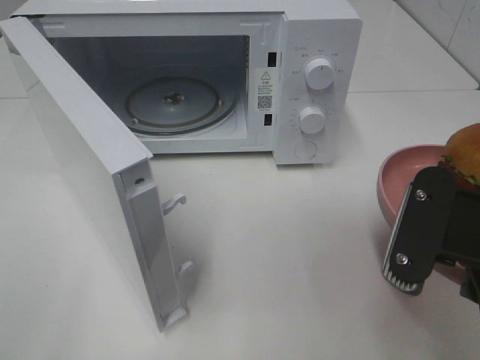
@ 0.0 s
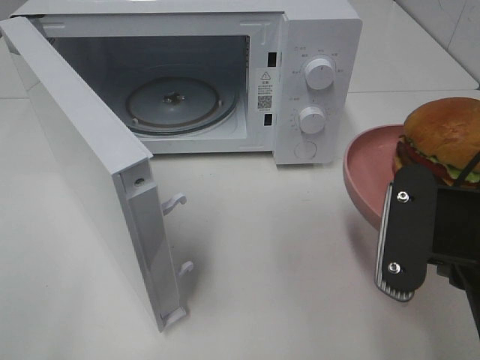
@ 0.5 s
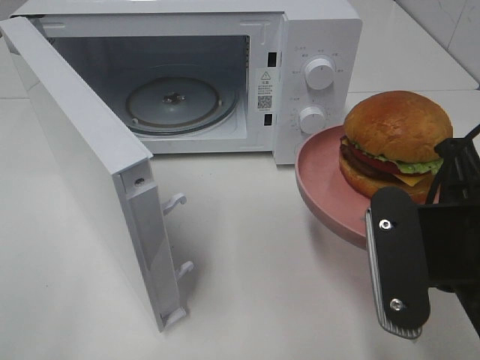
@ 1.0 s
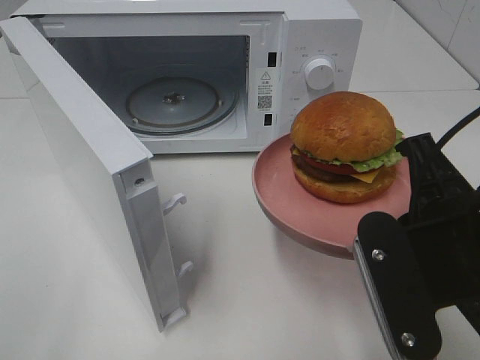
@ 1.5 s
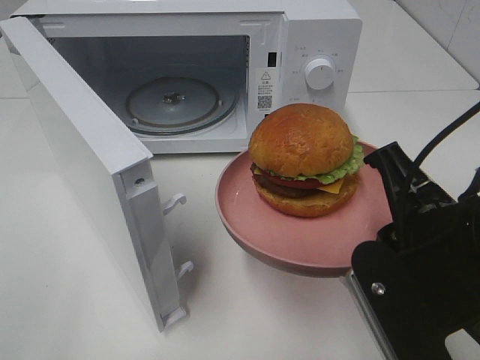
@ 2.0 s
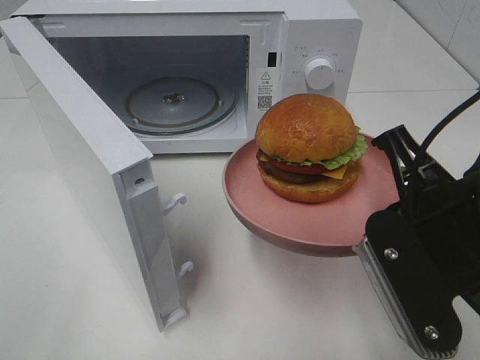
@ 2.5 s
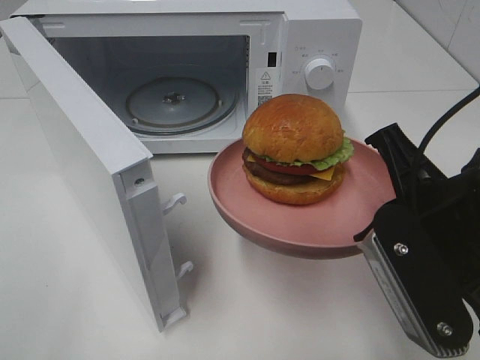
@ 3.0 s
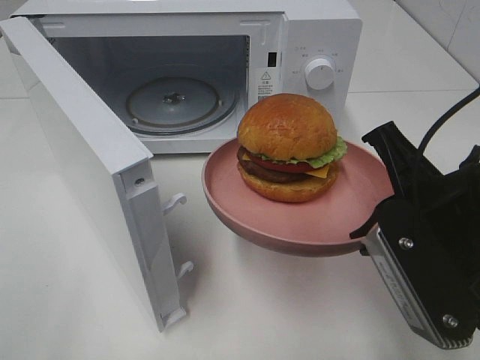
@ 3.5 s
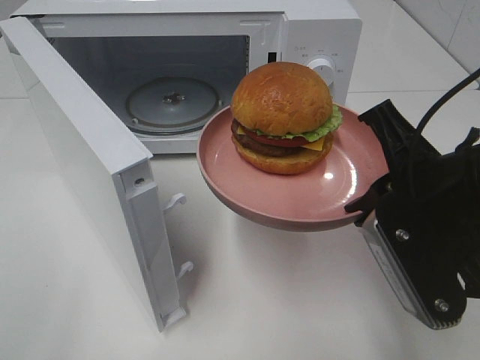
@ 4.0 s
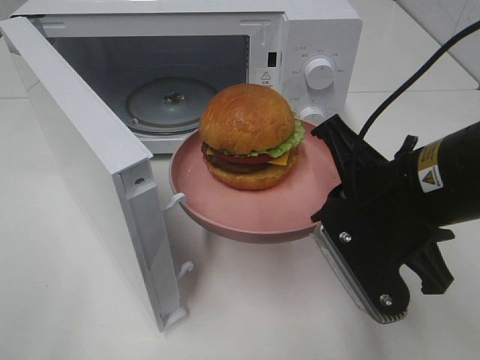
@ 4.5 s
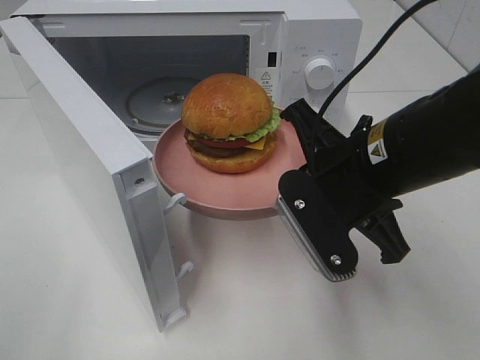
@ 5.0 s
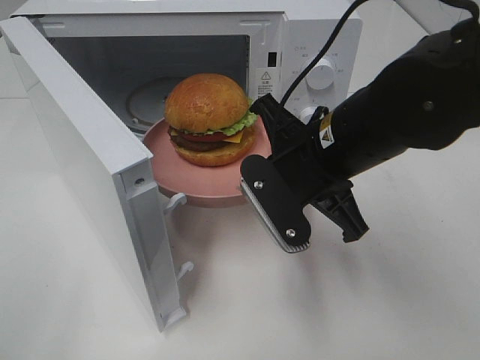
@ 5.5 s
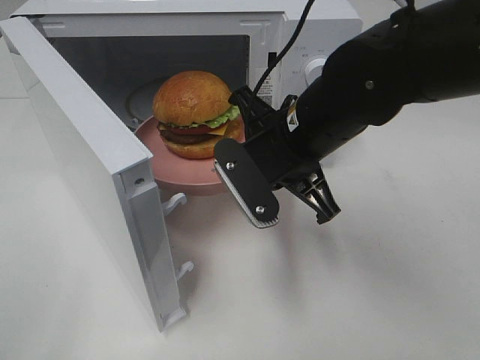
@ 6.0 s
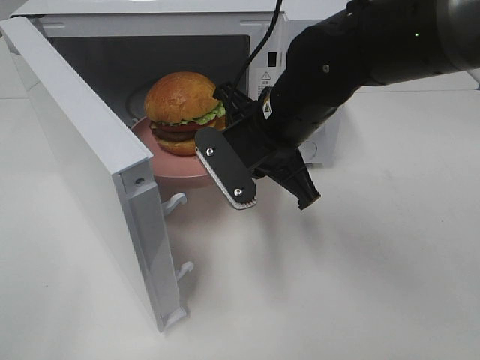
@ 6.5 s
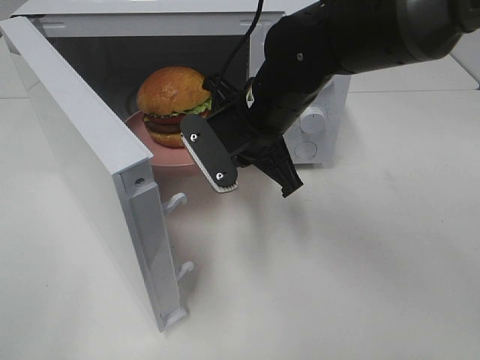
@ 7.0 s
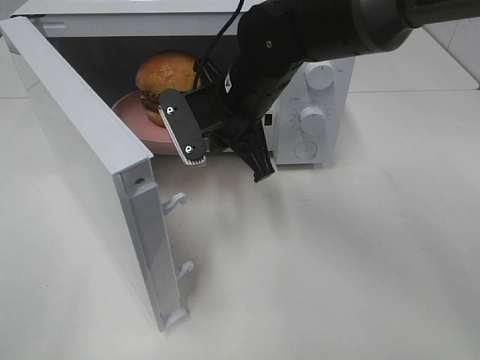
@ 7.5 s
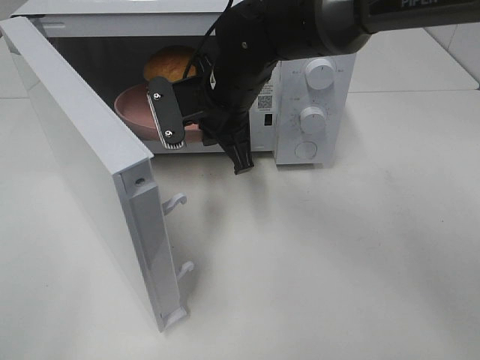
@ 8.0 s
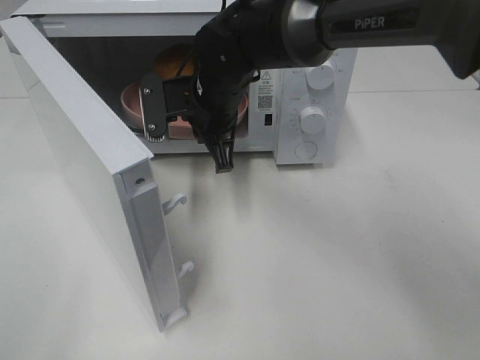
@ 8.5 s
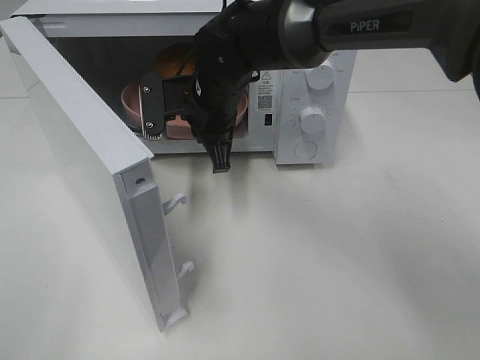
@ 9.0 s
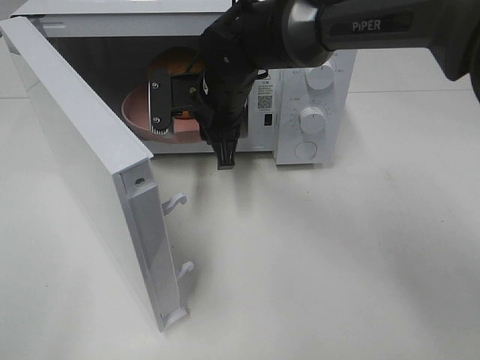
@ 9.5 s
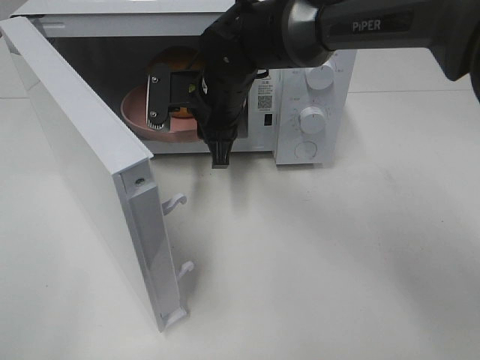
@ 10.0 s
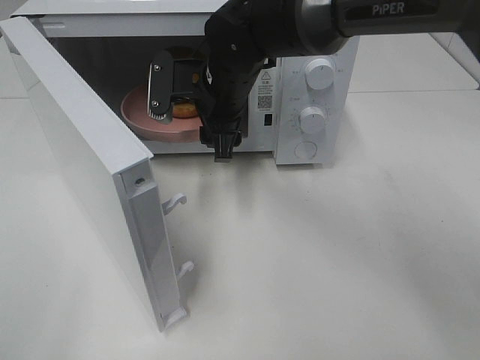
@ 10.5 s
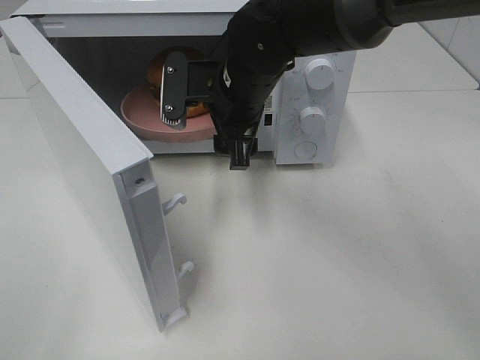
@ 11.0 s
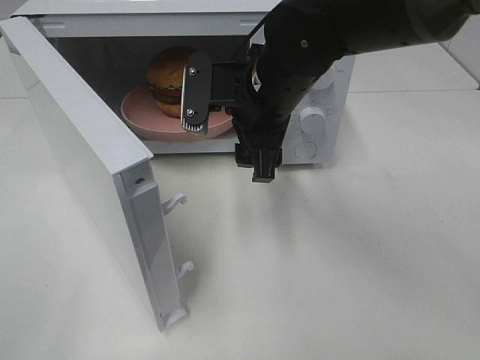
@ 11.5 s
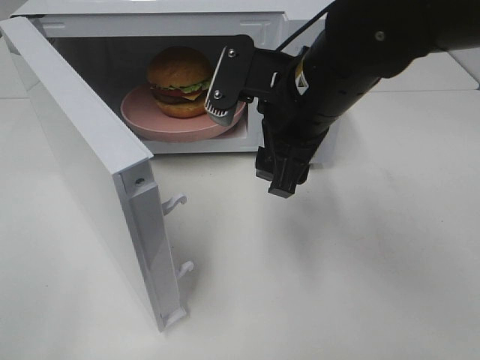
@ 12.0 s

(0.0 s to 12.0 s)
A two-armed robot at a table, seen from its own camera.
Task of the whole recording: Heat the burger.
Step, 0.0 s - 9.0 s: Right hand: place the plate in the microwave.
4.0 s - 6.0 s: The right gripper travels forward and to the left by about 15 cm.
6.0 s - 8.0 s: The right gripper heads forward and to the left, covering approximately 10 cm.
8.0 s - 10.0 s: There are only small adjustments of the grippers.
10.0 s - 12.0 s: The right gripper moves backward, to the right and upward, about 15 cm, and opens up.

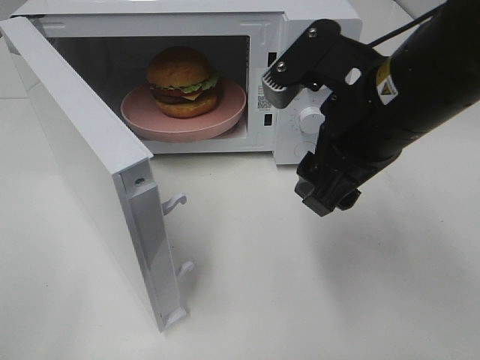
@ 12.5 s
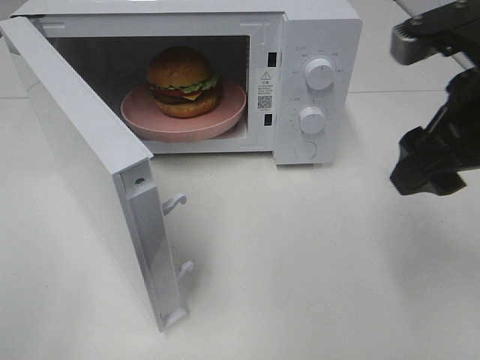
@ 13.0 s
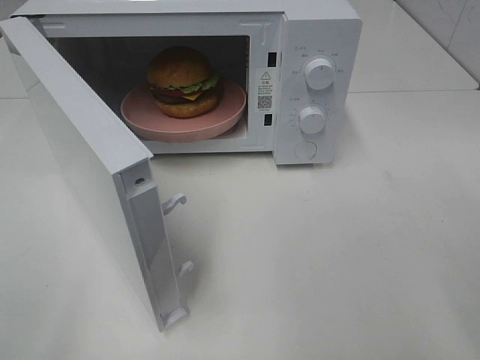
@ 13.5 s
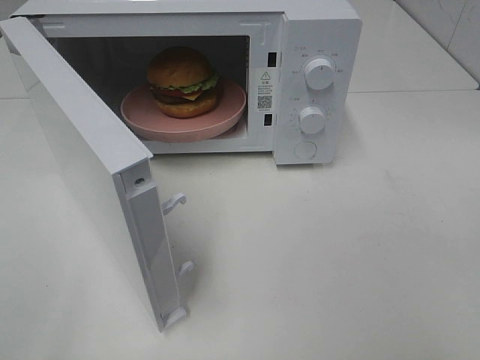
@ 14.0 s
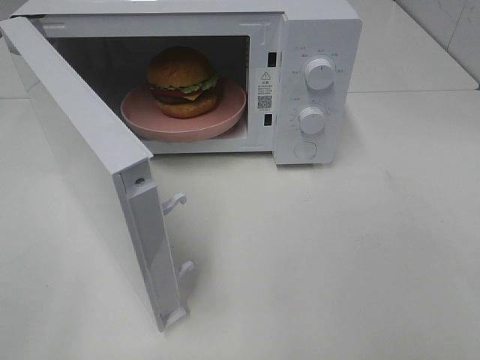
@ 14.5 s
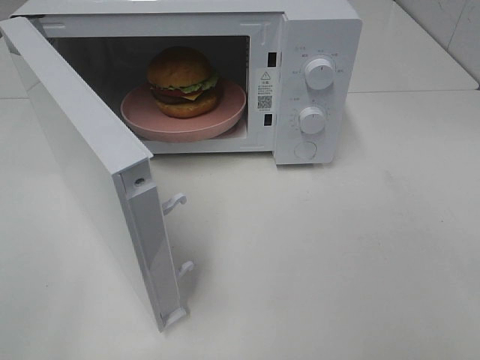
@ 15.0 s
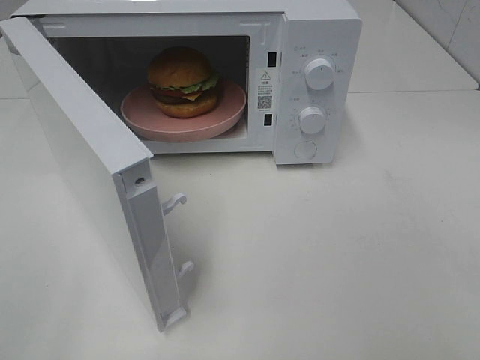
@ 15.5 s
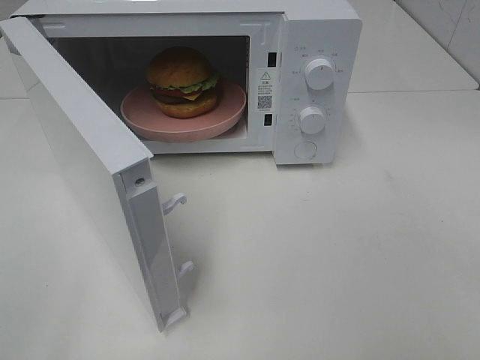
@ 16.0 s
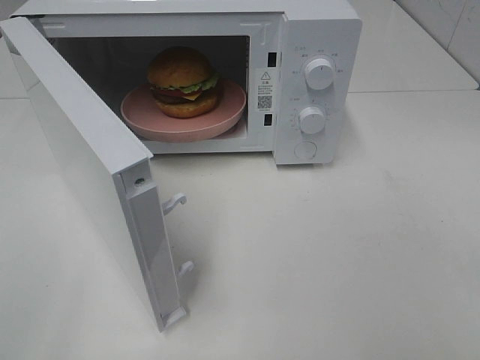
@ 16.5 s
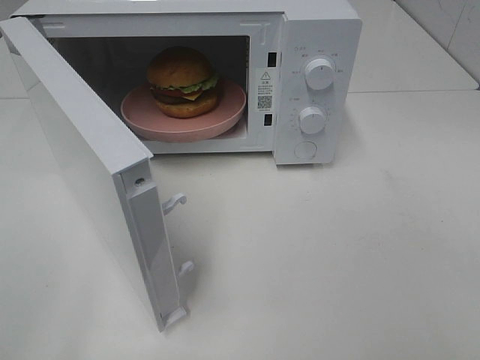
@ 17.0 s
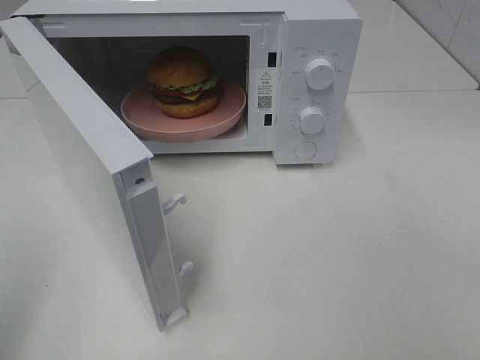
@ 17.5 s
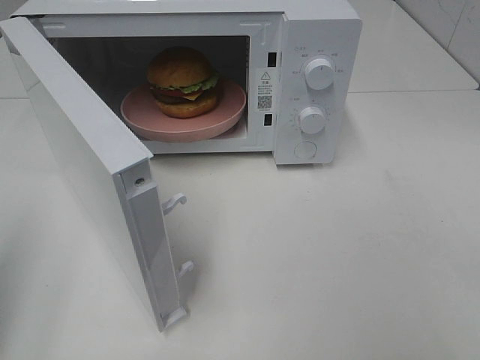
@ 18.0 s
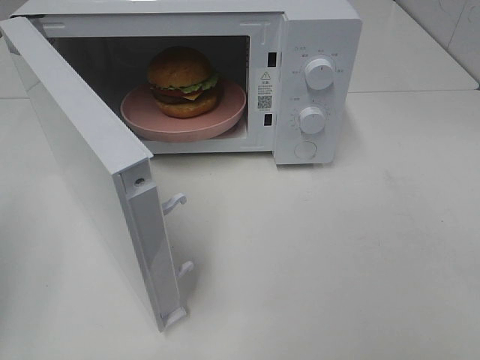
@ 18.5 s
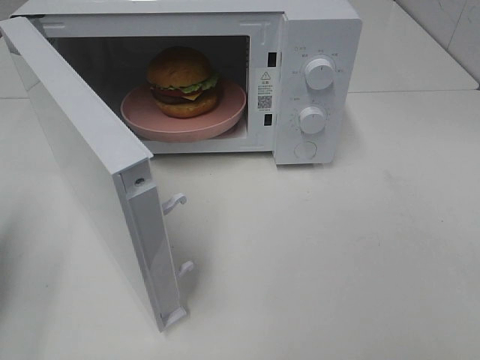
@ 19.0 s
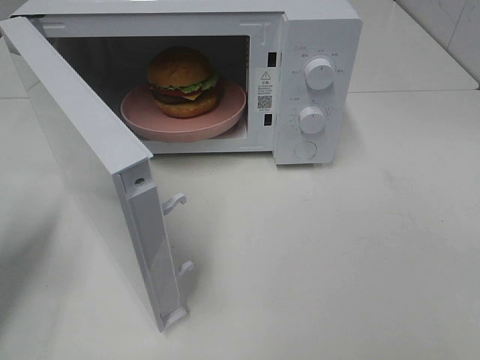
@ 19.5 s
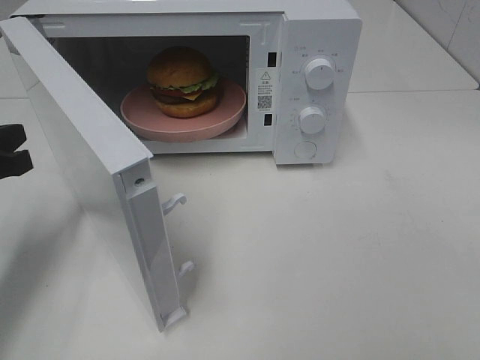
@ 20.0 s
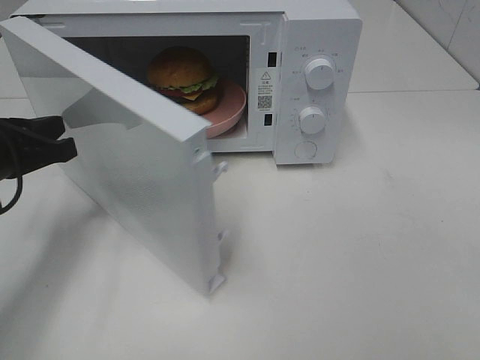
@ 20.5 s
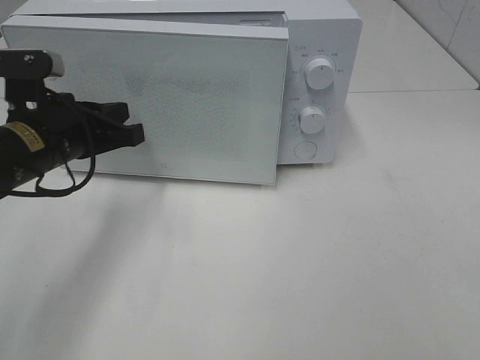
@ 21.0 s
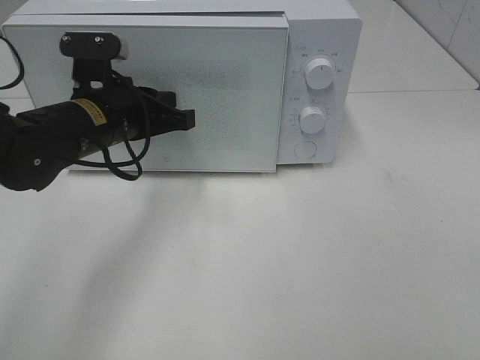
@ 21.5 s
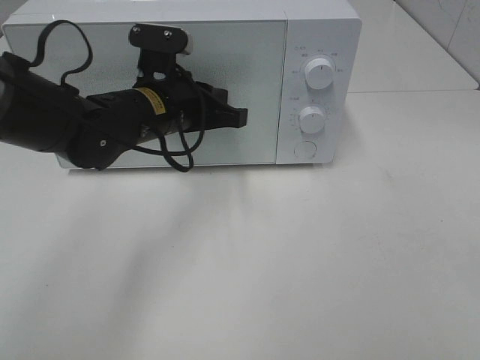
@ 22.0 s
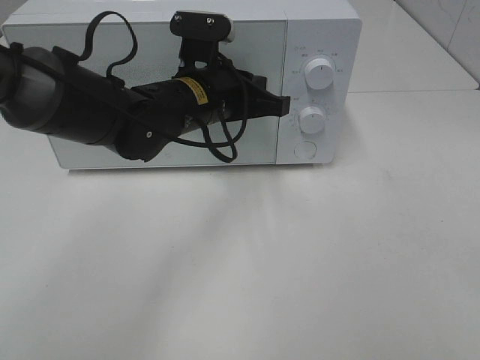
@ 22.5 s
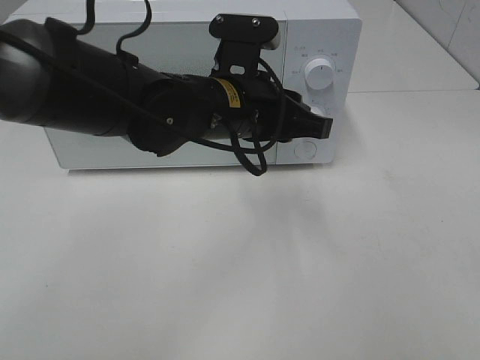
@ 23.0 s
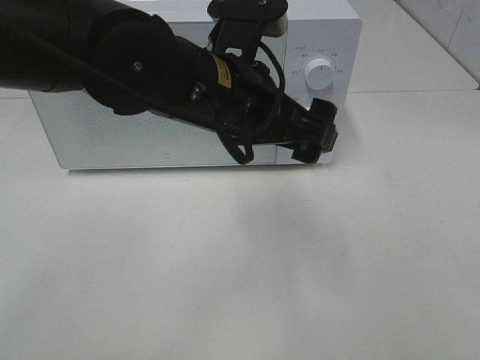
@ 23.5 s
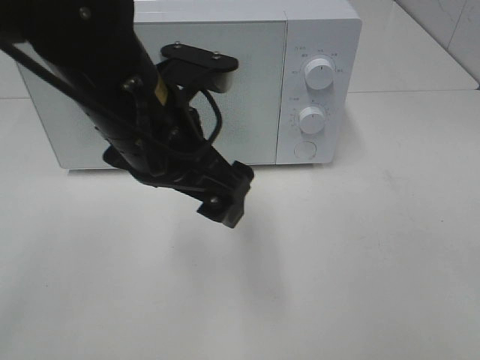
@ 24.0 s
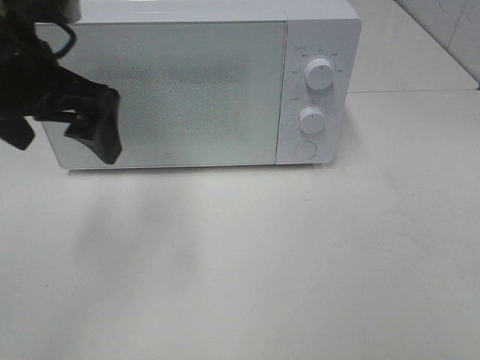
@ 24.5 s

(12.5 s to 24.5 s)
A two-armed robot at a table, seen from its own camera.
Task of the whole recording: Heat the burger.
Step, 12.5 s - 22.5 s: Left hand: close the microwave door.
12.5 s - 14.5 s: The right gripper is displaced backward and to the right by about 30 cm.
18.5 s - 20.5 s: The left gripper travels forward, to the right and downward by roughly 15 cm.
20.5 s - 22.5 s: The left gripper goes some 20 cm to the right.
22.5 s - 24.5 s: The left gripper heads to the left, upward and backward, covering approximately 20 cm, and opens.

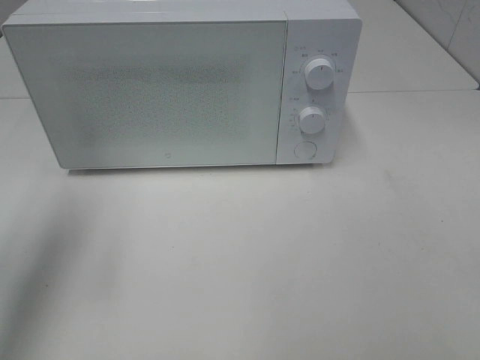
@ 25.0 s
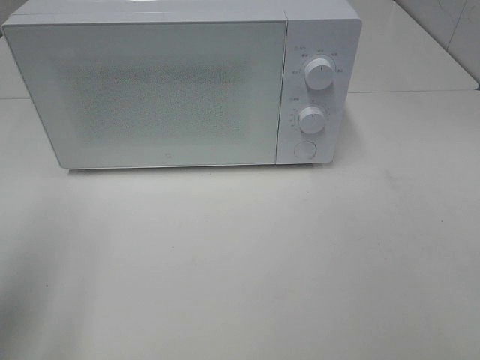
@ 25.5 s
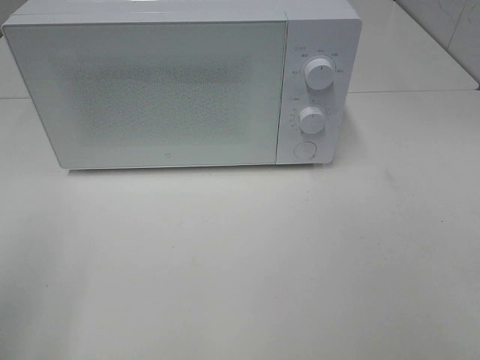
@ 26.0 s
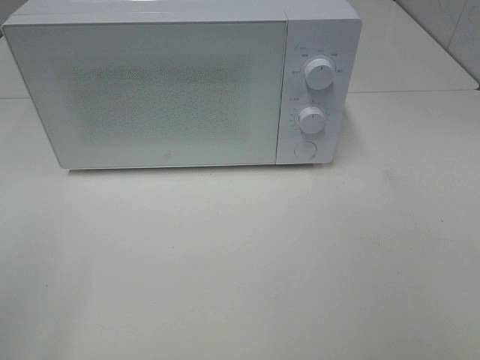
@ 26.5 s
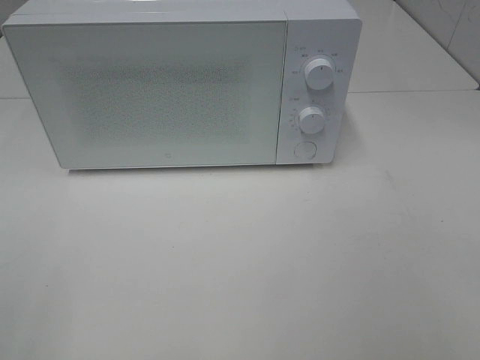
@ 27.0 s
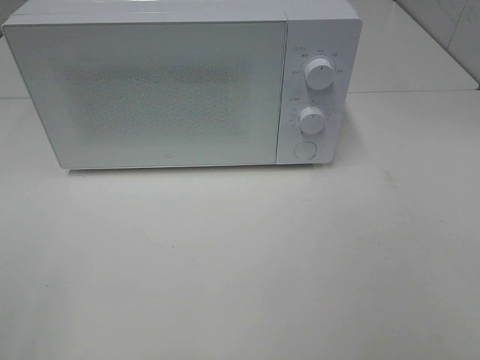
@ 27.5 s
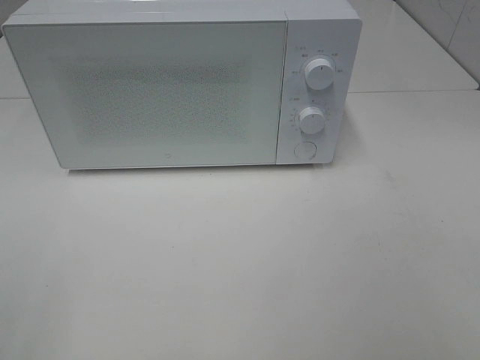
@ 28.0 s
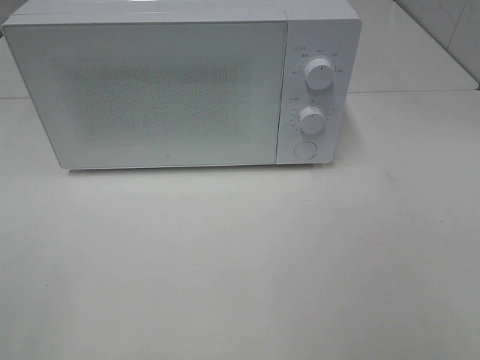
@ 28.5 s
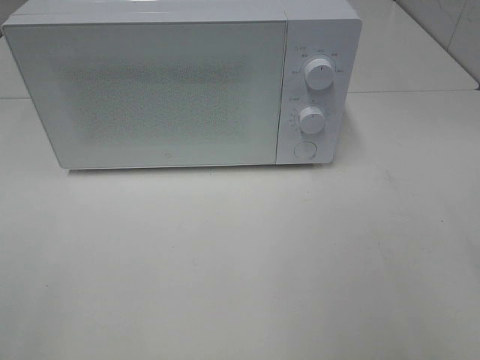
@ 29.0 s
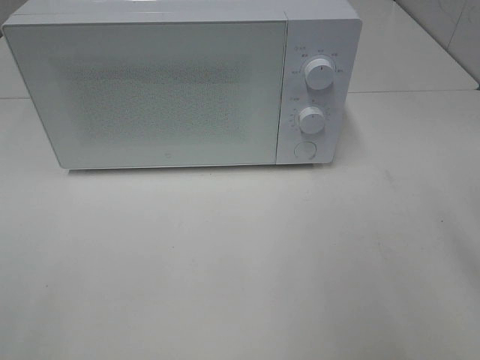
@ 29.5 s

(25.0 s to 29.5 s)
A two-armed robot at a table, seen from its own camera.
Task of the whole recording: Heat the burger.
25.0 s - 27.0 s: The left gripper travels backward by about 25 cm.
